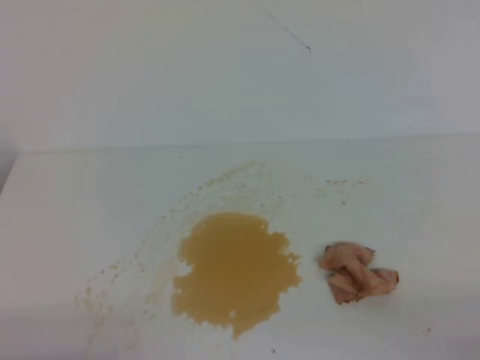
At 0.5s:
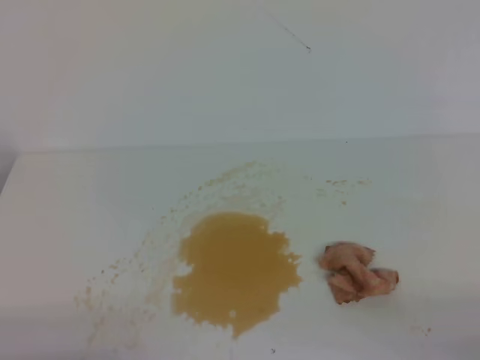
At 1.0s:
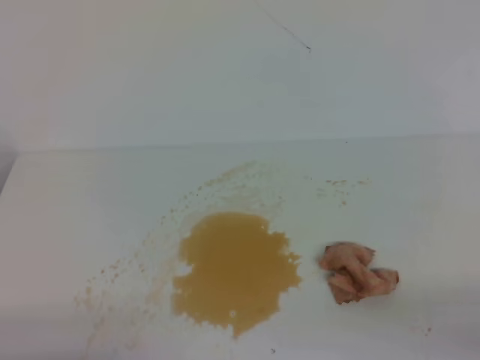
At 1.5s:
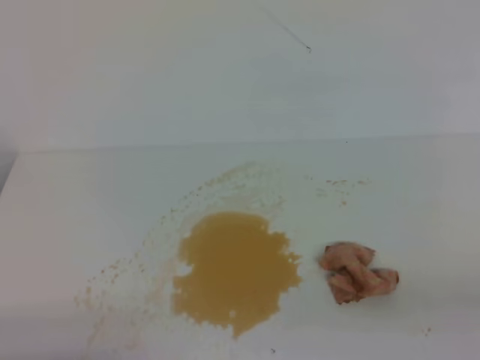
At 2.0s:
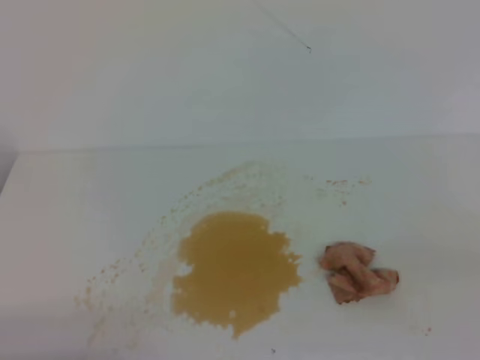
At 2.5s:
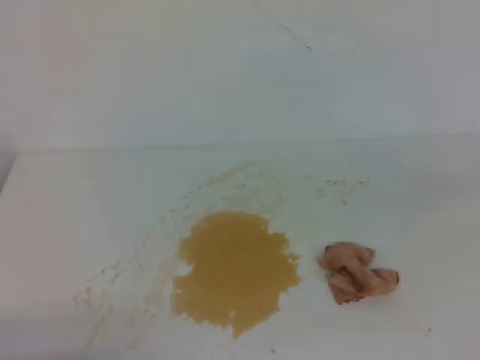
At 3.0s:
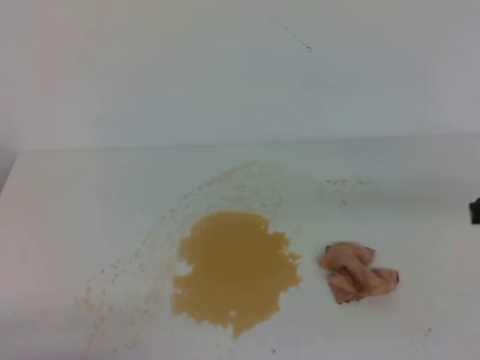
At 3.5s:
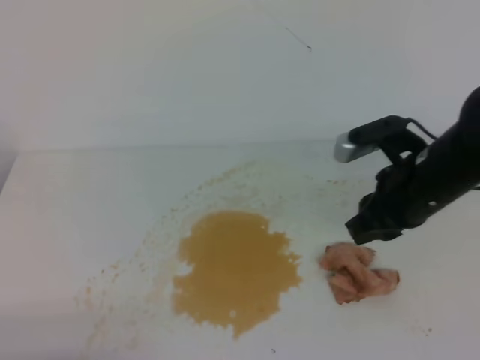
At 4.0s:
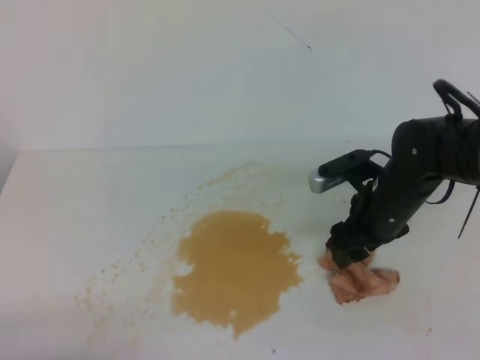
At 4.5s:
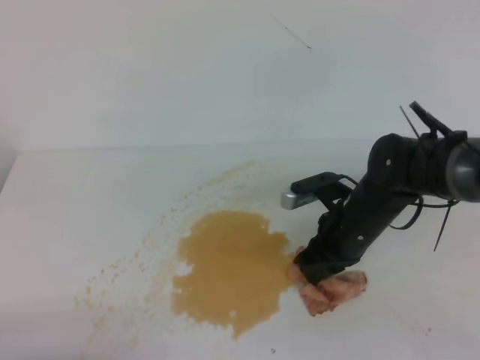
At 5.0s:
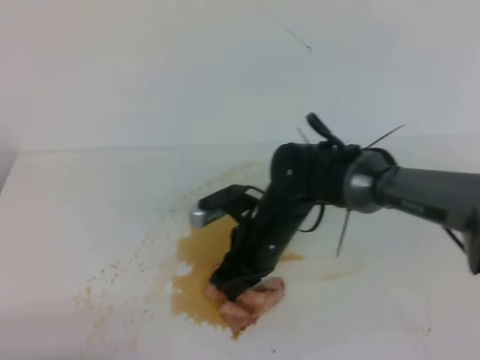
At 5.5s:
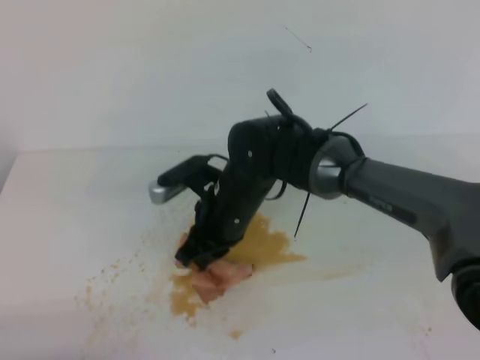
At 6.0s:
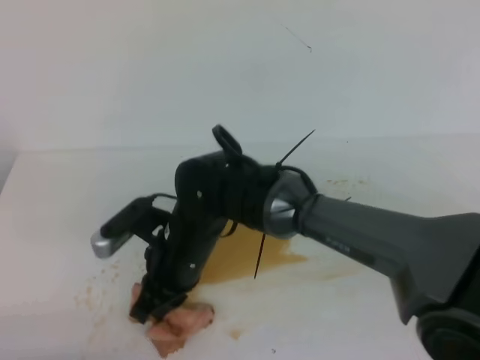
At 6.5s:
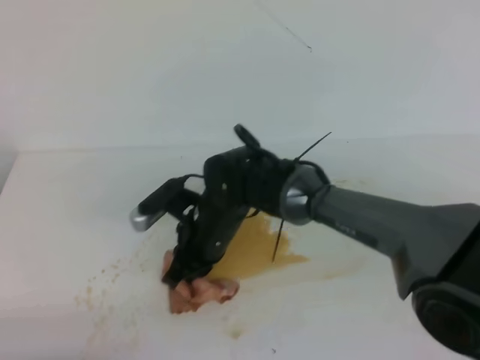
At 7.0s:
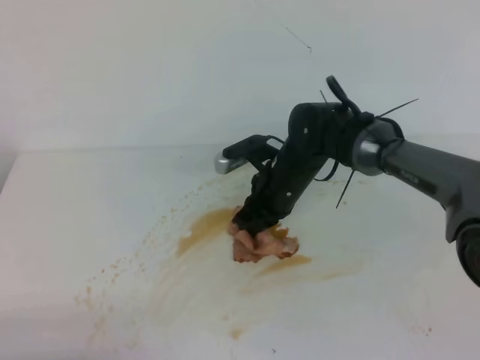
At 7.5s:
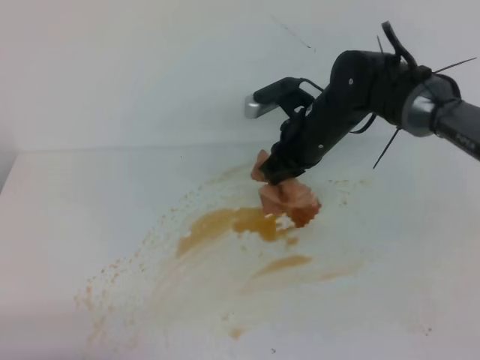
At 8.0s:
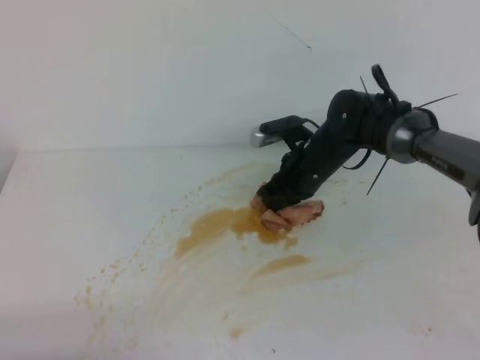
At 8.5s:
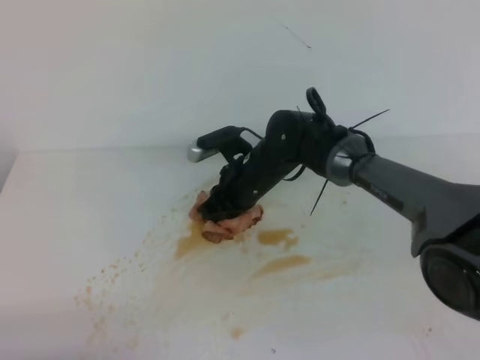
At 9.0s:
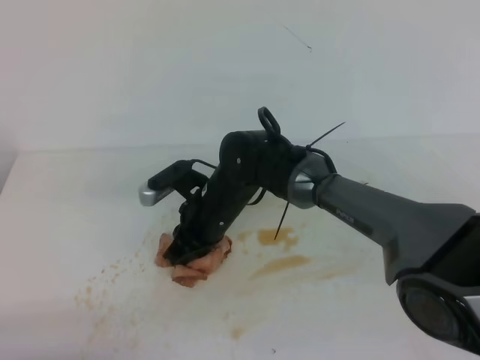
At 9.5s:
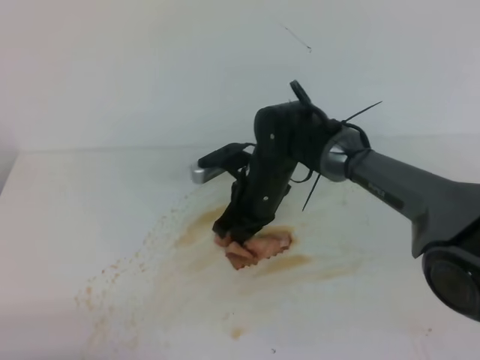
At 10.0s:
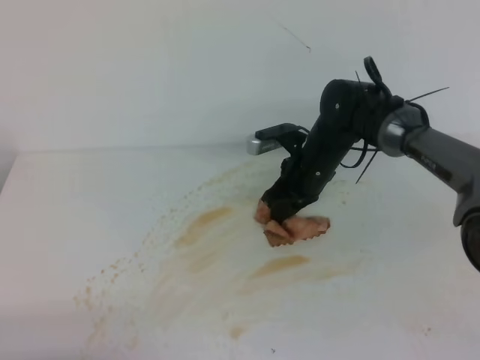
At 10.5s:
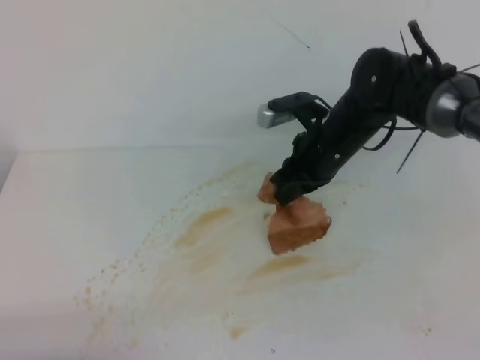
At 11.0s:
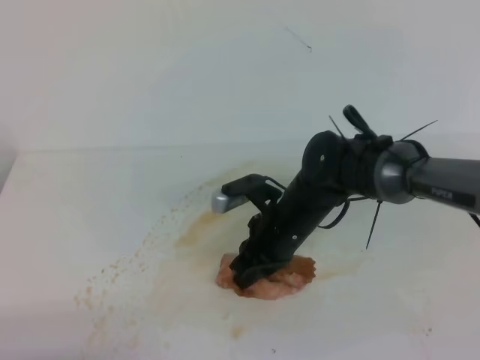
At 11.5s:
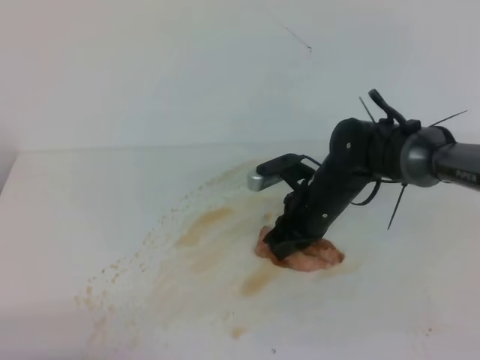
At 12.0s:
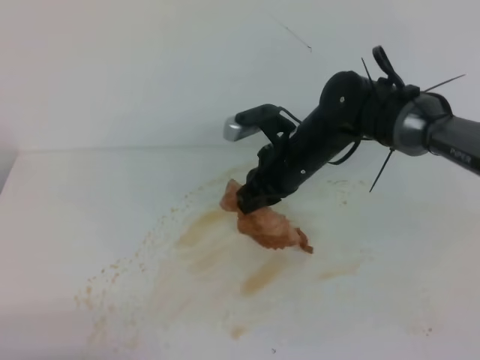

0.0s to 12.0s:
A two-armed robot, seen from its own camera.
2.0s to 4.0s: The right gripper heads forward, to the left and downward, covering some 40 cm, and opens up.
4.0s to 6.0s: The right gripper is displaced to the left by approximately 25 cm, and closes up.
6.0s to 8.0s: The right gripper goes some 20 cm to the right and forward.
8.0s to 10.0s: The right gripper reaches about 15 cm to the left, then returns.
10.0s to 12.0s: The right gripper shifts by some 5 cm.

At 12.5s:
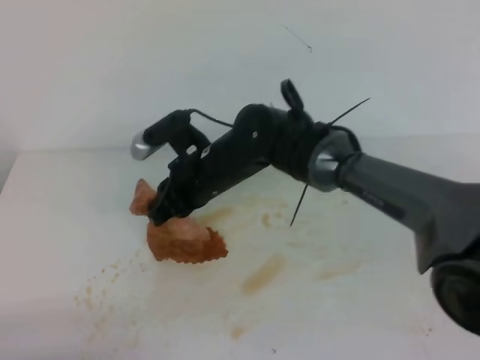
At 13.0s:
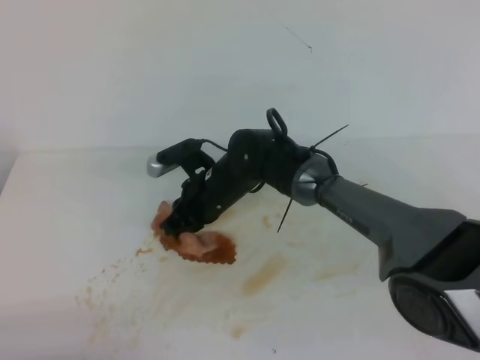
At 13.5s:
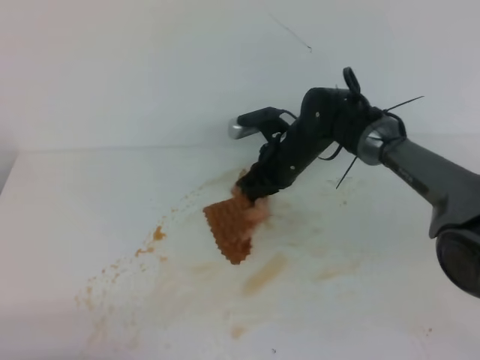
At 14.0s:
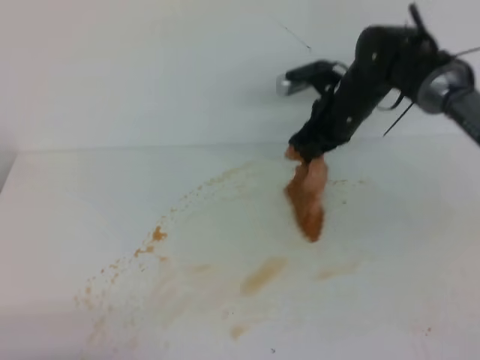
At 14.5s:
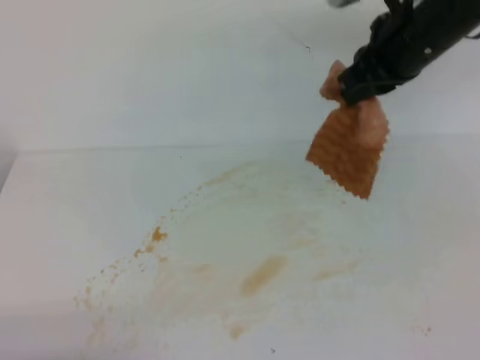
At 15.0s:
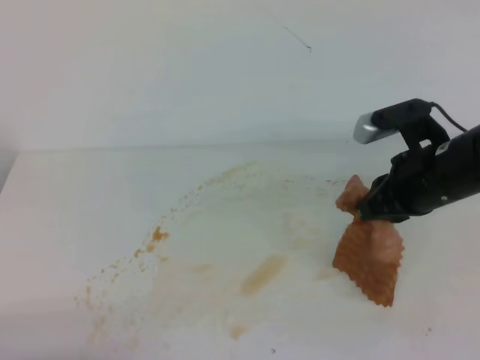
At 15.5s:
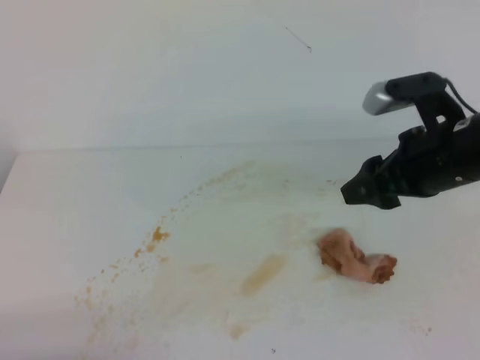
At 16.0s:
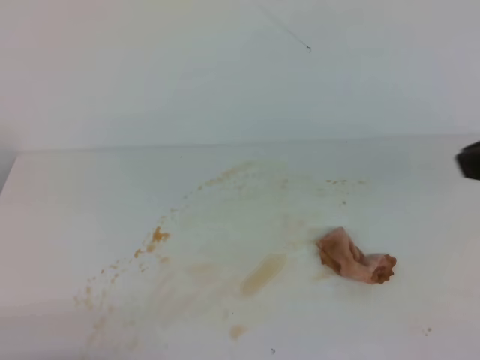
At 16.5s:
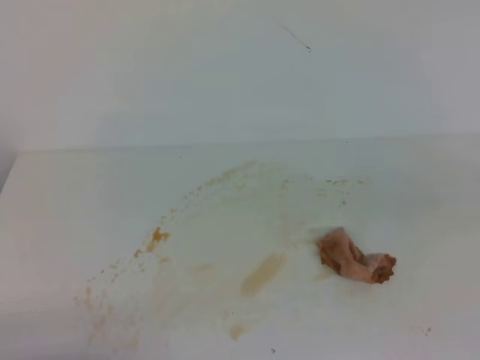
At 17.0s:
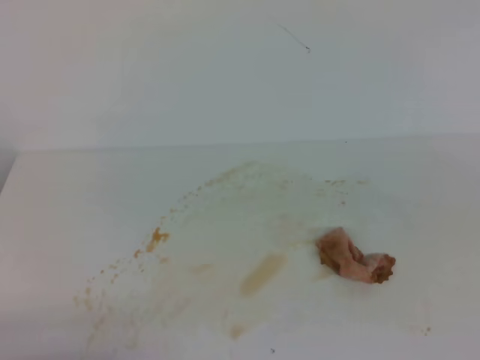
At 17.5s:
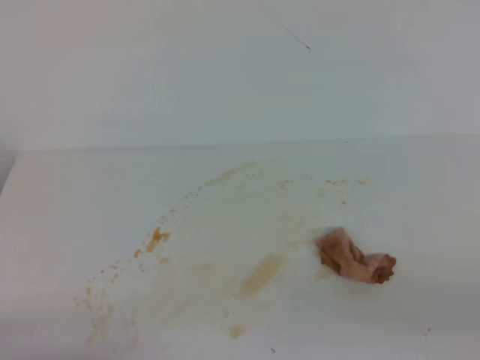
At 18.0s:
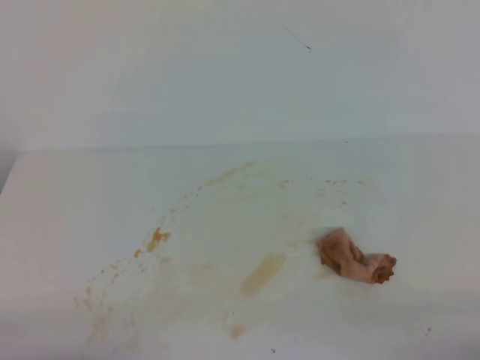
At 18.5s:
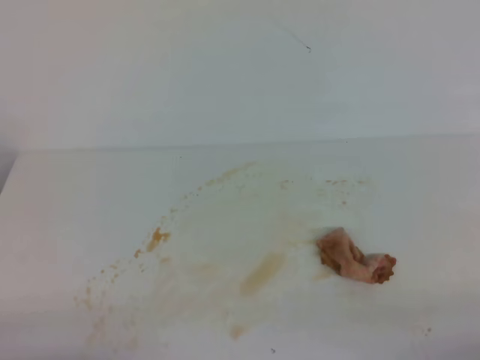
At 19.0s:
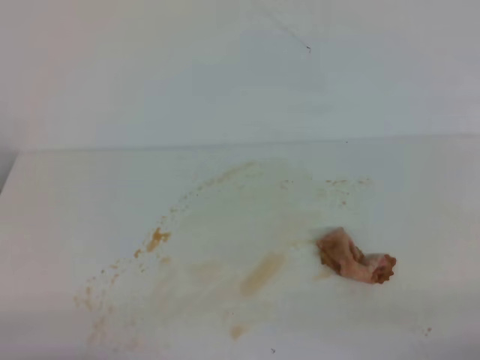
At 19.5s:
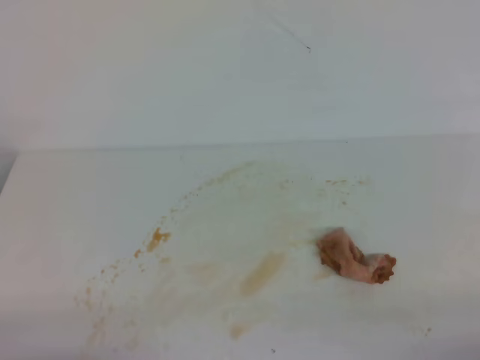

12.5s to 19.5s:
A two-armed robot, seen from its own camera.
12.5s to 14.5s: The right gripper goes approximately 25 cm to the right and upward.
14.5s to 16.0s: The right gripper shifts roughly 20 cm backward, and opens, then closes again.
16.0s to 17.5s: The right gripper travels backward, downward and to the right by roughly 20 cm.
